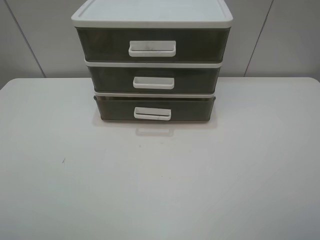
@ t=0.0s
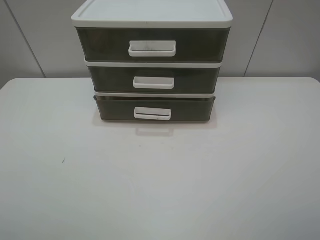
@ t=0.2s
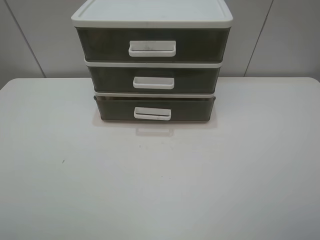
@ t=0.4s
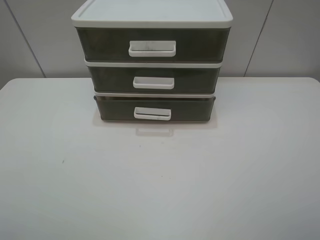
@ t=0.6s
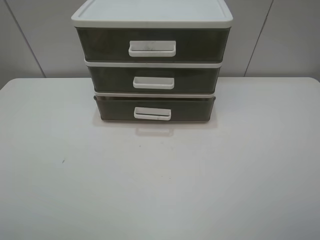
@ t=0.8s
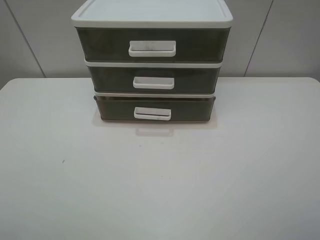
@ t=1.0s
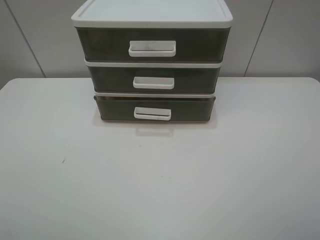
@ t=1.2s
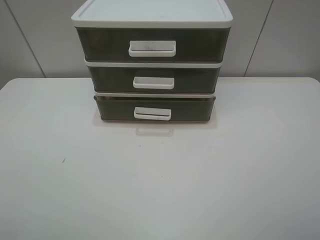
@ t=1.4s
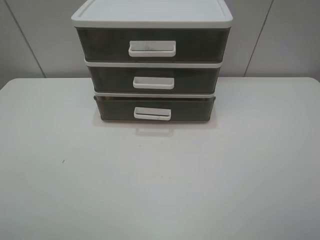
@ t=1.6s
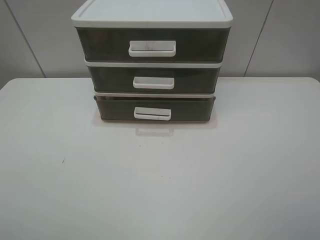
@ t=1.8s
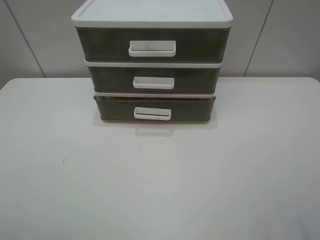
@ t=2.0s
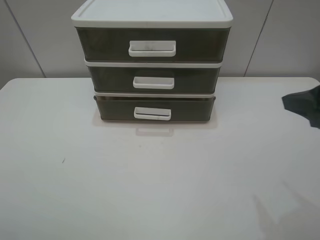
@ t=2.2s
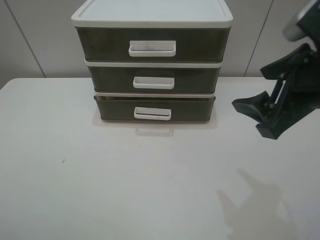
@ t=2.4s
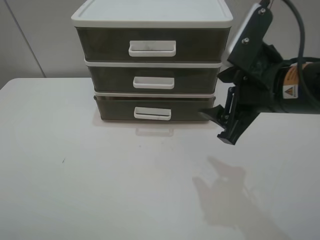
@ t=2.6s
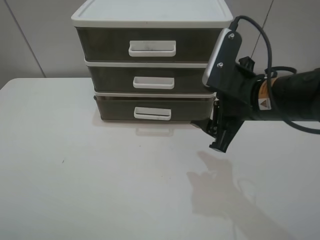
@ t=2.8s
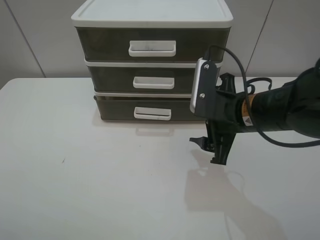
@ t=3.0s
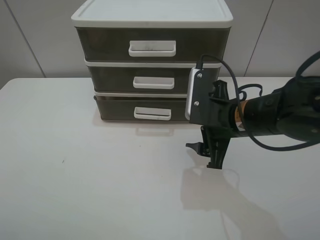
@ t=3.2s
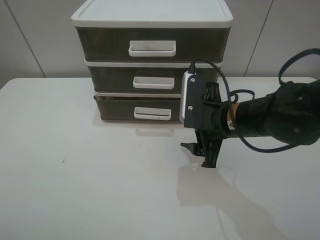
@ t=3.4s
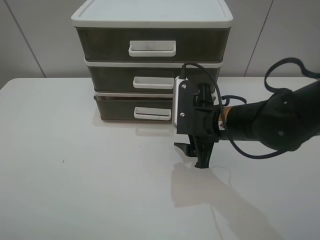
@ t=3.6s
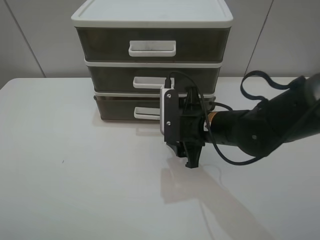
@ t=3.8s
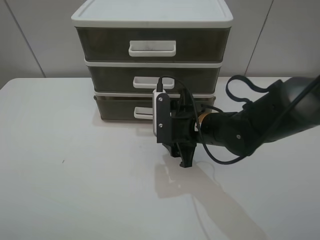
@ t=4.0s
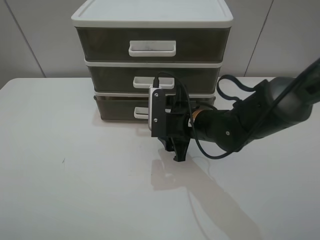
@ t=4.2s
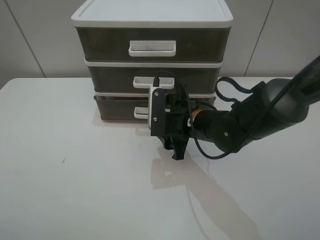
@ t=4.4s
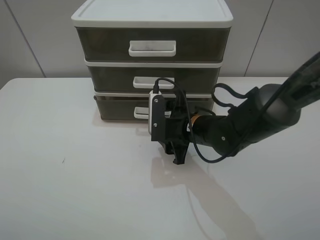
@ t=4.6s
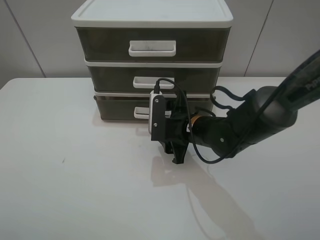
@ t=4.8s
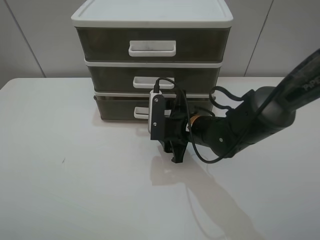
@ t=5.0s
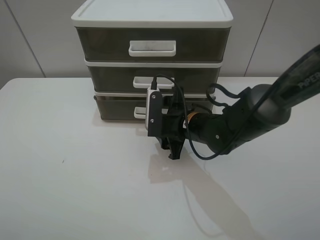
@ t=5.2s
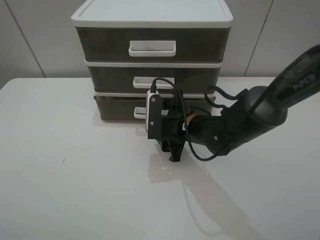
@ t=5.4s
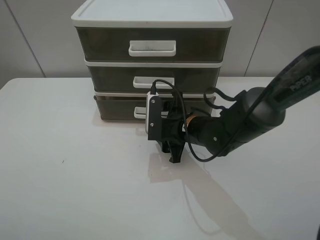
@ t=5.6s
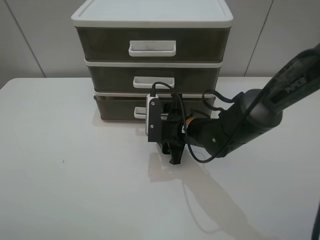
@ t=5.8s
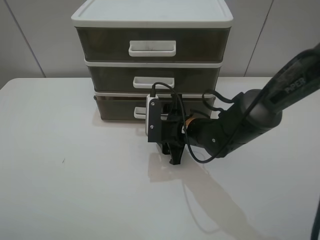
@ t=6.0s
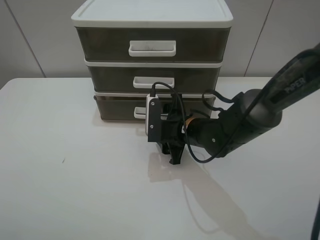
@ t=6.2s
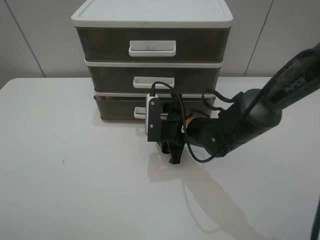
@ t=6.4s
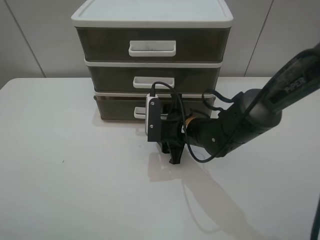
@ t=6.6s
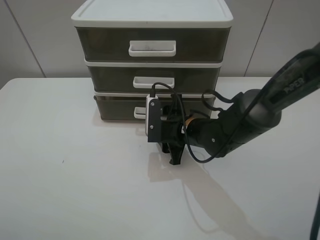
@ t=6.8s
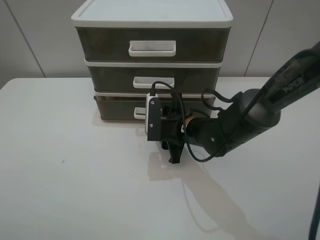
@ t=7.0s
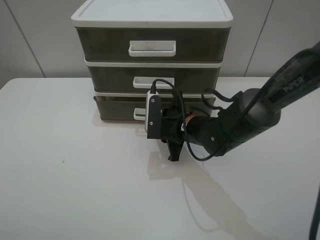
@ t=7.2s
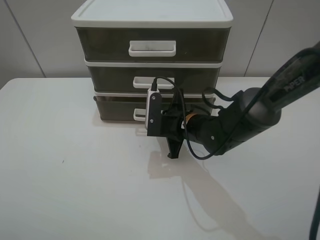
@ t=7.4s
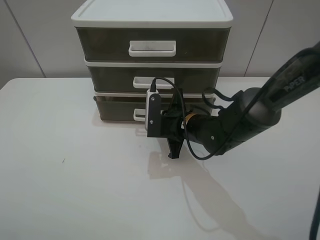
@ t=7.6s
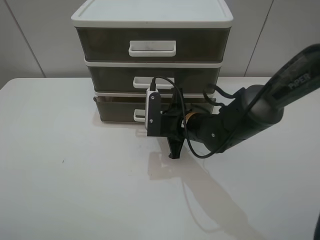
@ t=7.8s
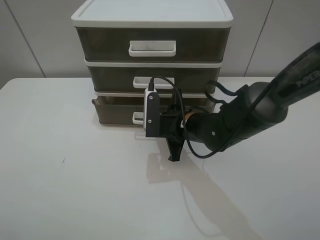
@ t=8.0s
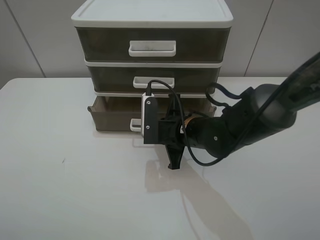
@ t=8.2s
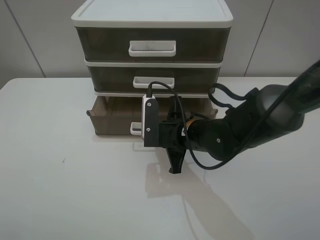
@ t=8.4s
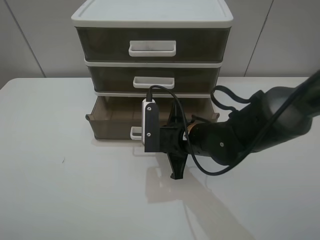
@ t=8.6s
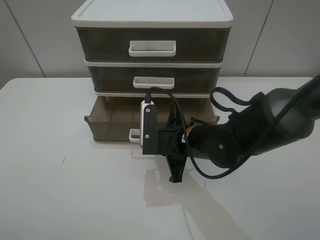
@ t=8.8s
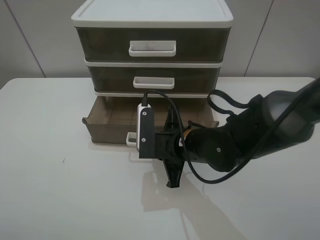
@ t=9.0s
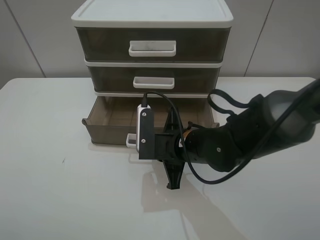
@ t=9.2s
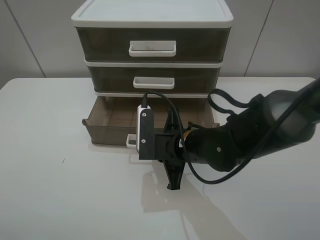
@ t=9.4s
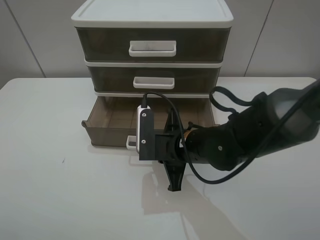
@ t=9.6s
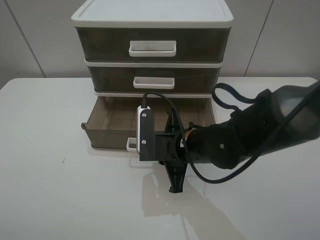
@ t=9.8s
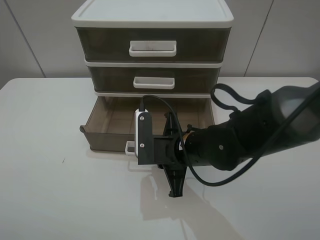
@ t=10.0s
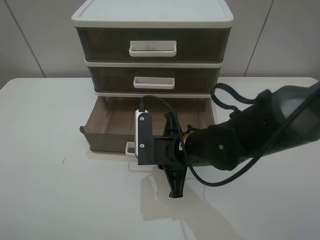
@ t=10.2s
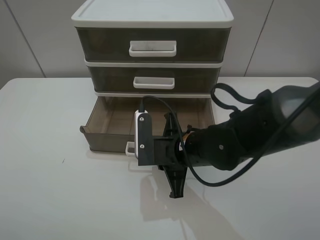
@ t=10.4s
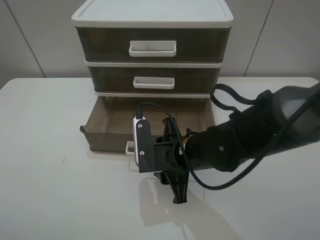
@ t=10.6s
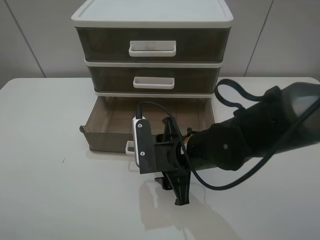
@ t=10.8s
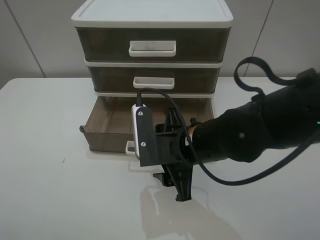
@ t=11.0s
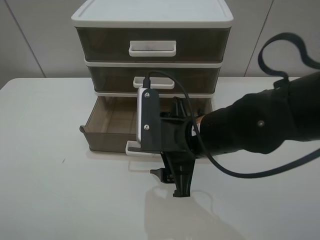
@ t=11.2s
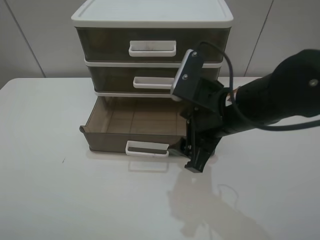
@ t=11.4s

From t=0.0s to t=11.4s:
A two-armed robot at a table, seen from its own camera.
Task of the whole recording: open the bottom drawer.
Step, from t=0.0s to t=7.6s: Grab the bottom drawer with the right gripper.
Step, from t=7.8s to t=10.8s: Pull open the drawer with the right gripper.
From t=0.0s to t=1.4s: Neither gripper changes place.
From t=1.4s to t=2.8s: The right gripper travels forward and to the left by approximately 25 cm.
From t=2.8s to t=4.2s: The right gripper shifts about 15 cm downward, to the left and forward.
From t=4.2s to t=5.6s: The grippers make only small movements.
From t=5.6s to t=7.2s: The right gripper closes up.
From t=7.2s to t=8.6s: The right gripper ends up some 5 cm from where it was.
From t=8.6s to t=10.0s: The grippers move only a little.
From t=10.0s to t=11.4s: The right gripper moves upward and to the right, some 15 cm, and opens up.

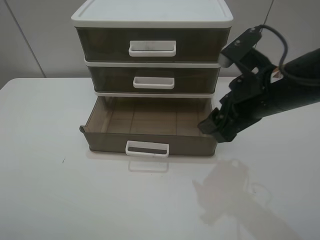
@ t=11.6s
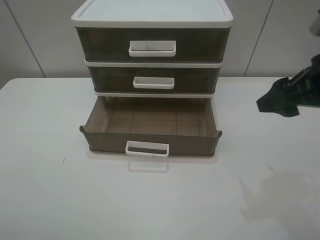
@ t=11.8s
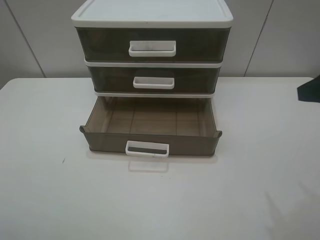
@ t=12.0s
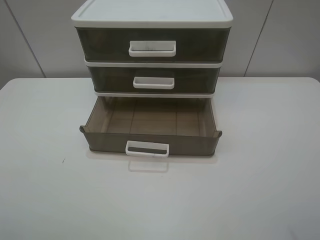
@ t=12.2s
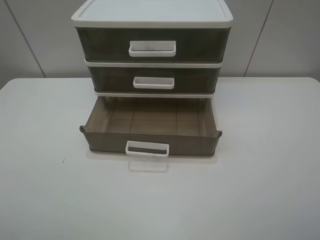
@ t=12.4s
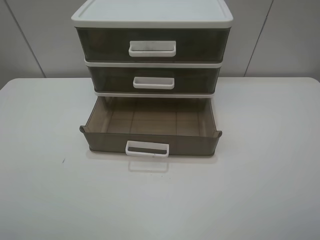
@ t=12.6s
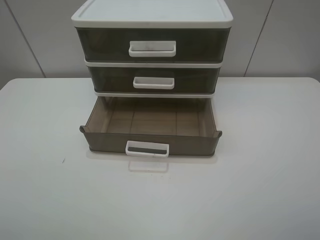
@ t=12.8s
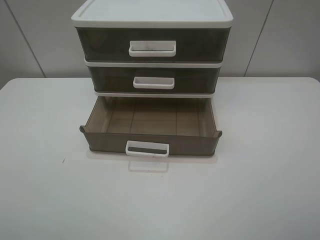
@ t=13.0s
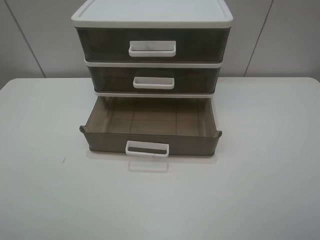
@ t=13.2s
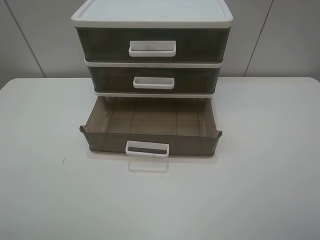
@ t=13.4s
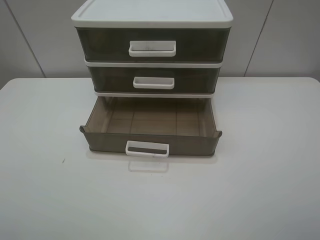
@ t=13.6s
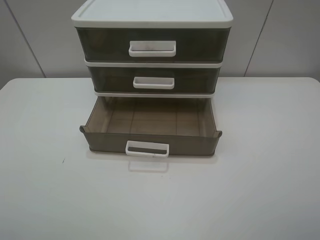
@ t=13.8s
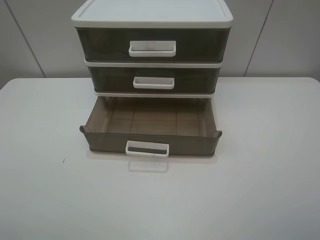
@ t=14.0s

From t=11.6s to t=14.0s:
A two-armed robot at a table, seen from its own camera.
Task of the whole recording: open the bottom drawer.
From t=11.6s to t=12.8s: The right gripper is displaced backward and to the right by roughly 25 cm.
From t=12.8s to t=14.0s: Both grippers stay put.
